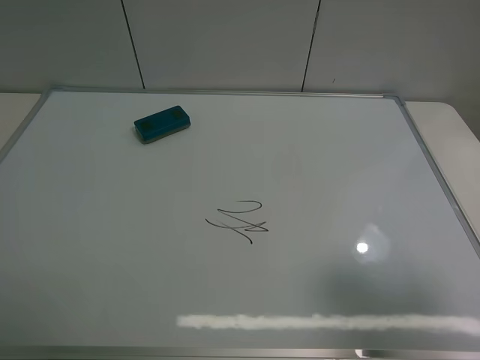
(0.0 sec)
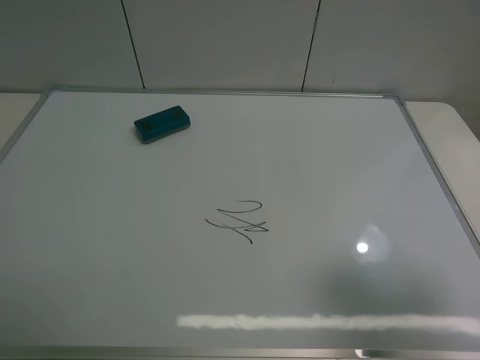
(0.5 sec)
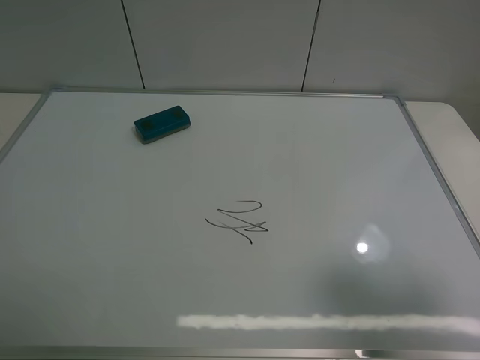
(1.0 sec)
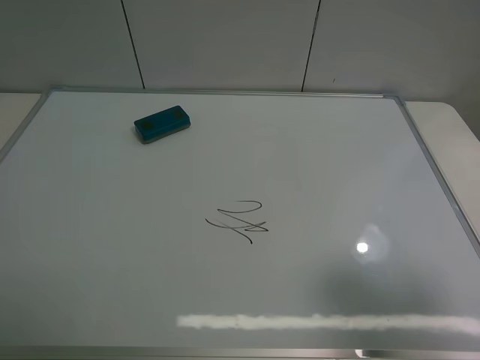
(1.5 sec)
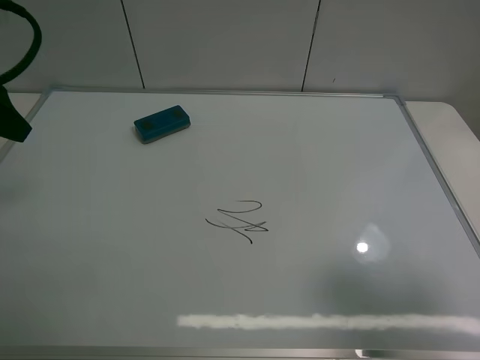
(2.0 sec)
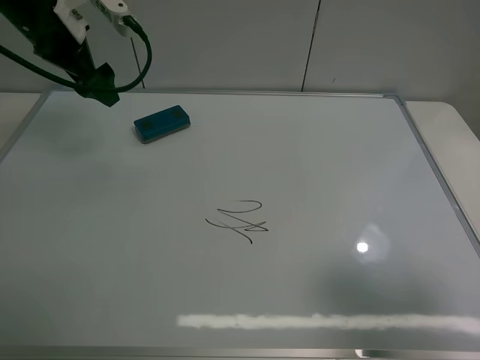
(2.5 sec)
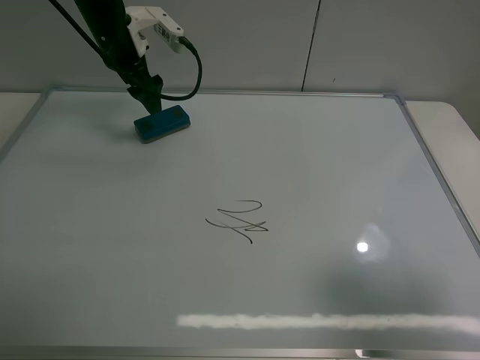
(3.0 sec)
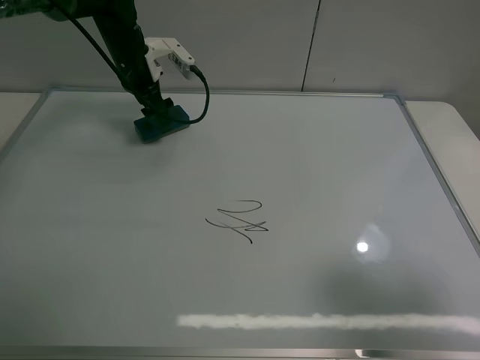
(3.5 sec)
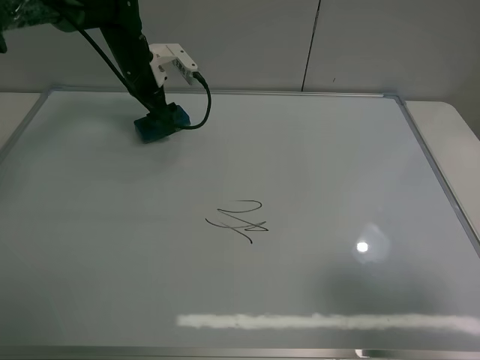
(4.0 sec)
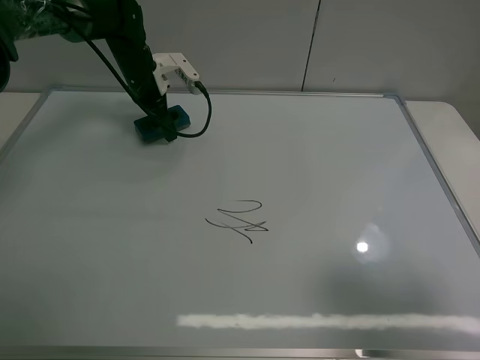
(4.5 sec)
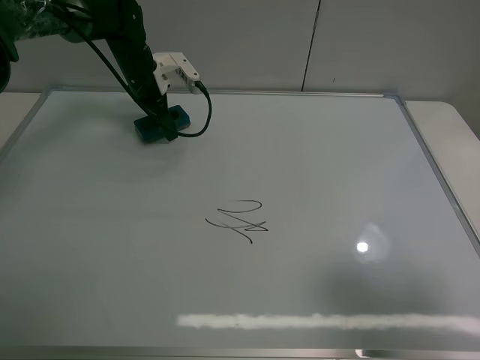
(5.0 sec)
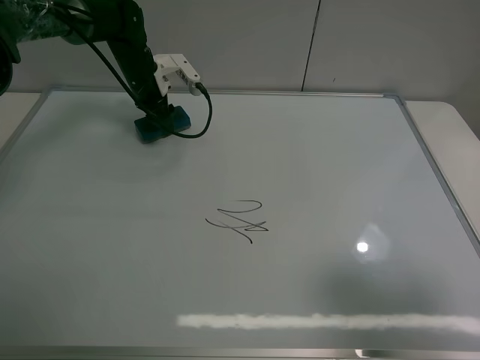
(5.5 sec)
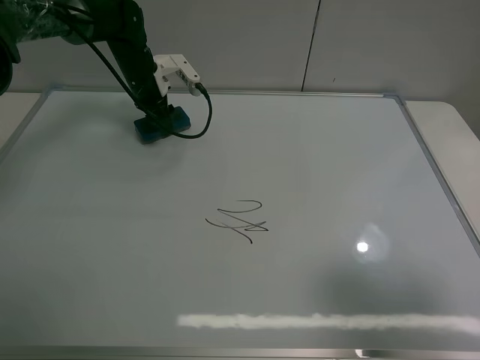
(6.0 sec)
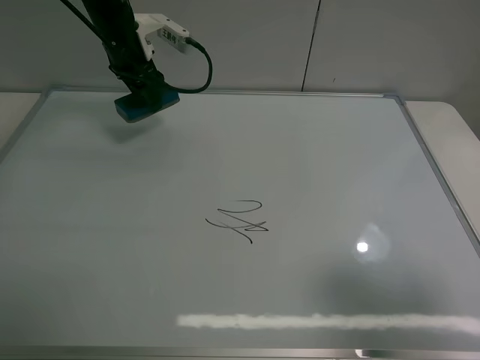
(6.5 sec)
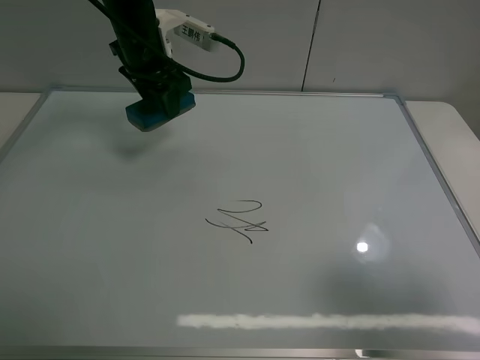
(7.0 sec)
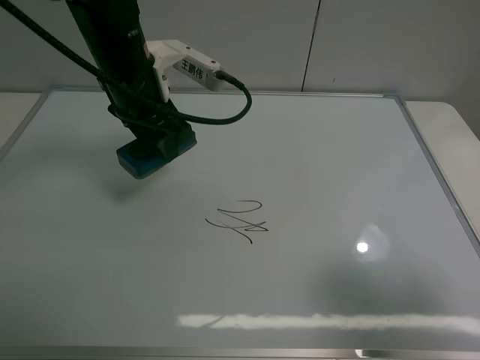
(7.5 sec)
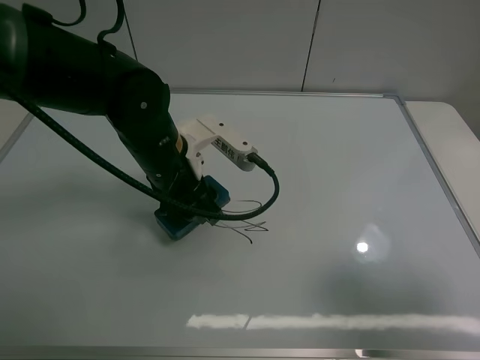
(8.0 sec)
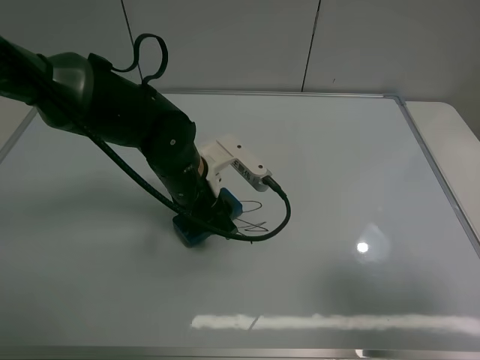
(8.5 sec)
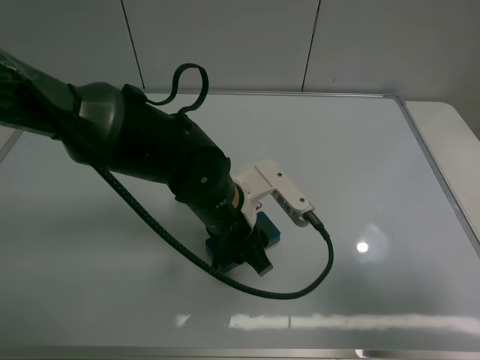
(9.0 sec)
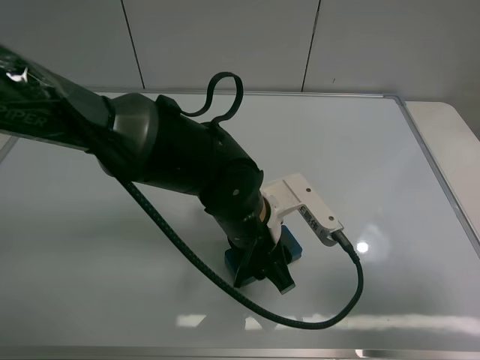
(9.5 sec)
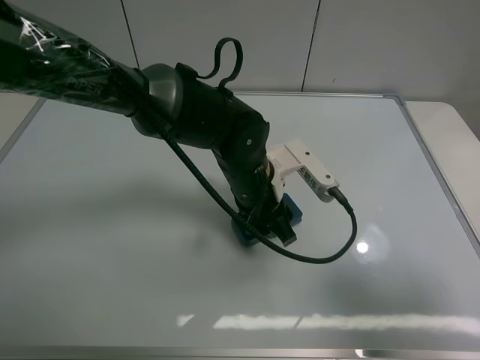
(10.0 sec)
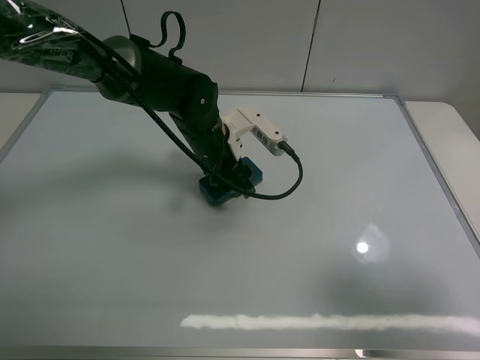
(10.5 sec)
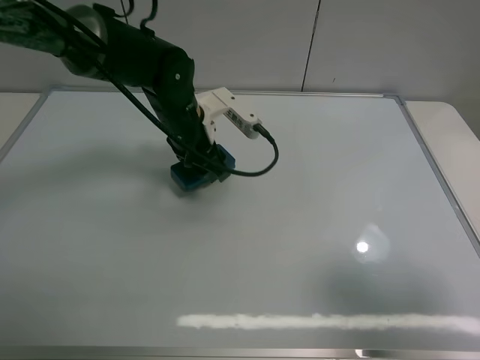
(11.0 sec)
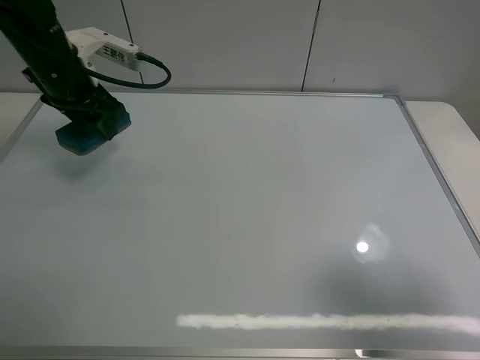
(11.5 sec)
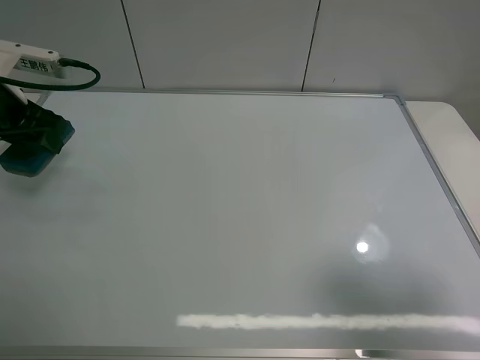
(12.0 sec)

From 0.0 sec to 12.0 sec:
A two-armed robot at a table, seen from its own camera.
Task of the whole recording: use the left claw to pick up the whiteboard eraser, wipe the notes on the whiteboard clean, and then put them back in place.
Step, from 0.0 sec to 5.5 sec: Grasp the eraser with the left gripper.
Step, from 6.0 sec to 10.5 sec: Grasp the eraser and wipe the blackboard with the left gripper.
From 0.0 sec to 2.0 sec: The left gripper moves forward, some 25 cm.
From 2.0 sec to 4.0 sec: The left gripper is displaced forward, downward and to the right by roughly 30 cm.
From 4.0 sec to 6.0 sec: The left gripper closes up.
From 6.0 sec to 8.0 sec: The left gripper goes some 25 cm backward and to the right.
From 8.0 sec to 10.0 sec: The left gripper goes approximately 10 cm to the right.
From 10.0 sec to 12.0 sec: The left gripper travels to the left by about 35 cm.

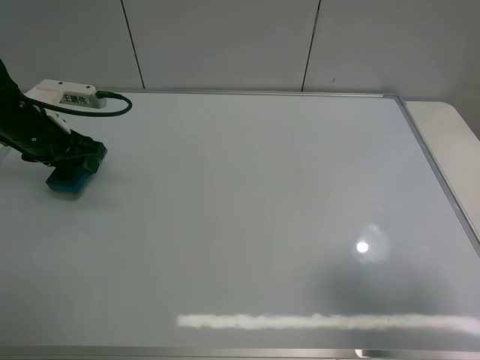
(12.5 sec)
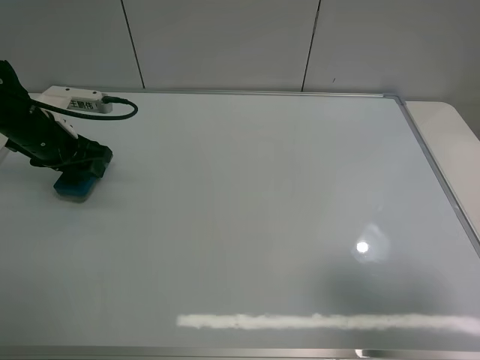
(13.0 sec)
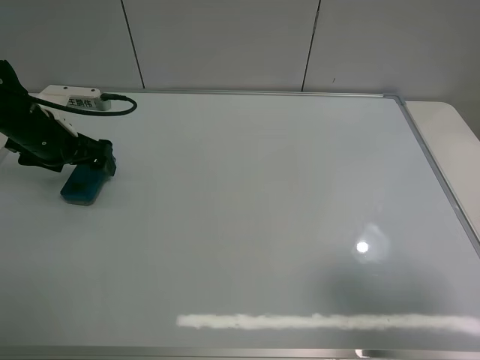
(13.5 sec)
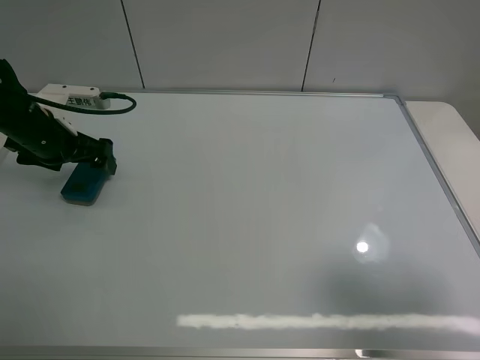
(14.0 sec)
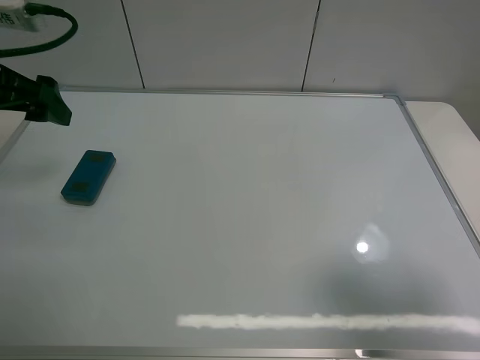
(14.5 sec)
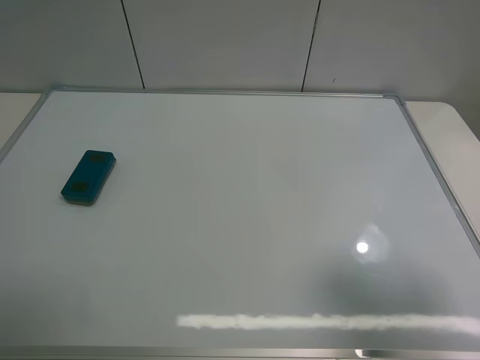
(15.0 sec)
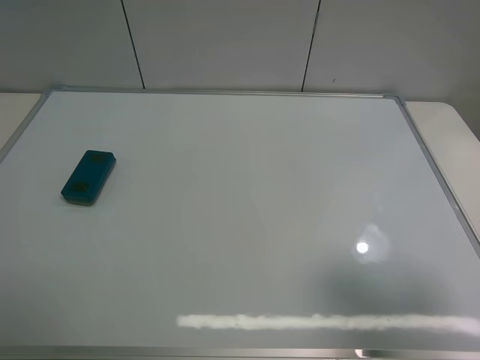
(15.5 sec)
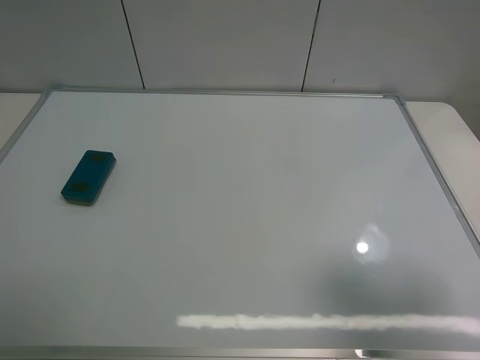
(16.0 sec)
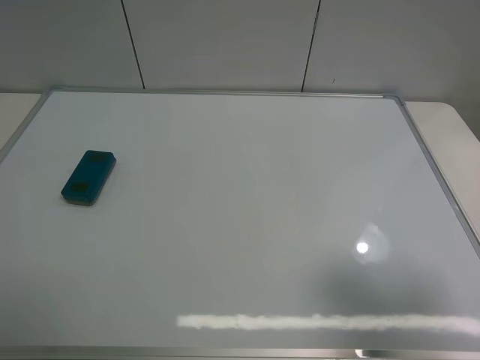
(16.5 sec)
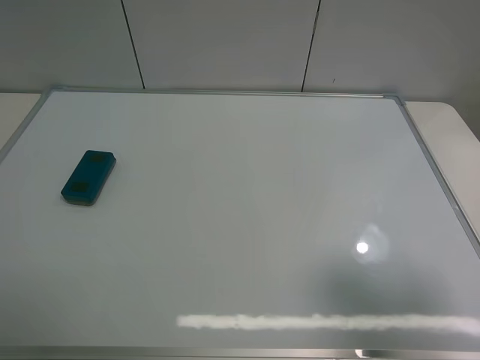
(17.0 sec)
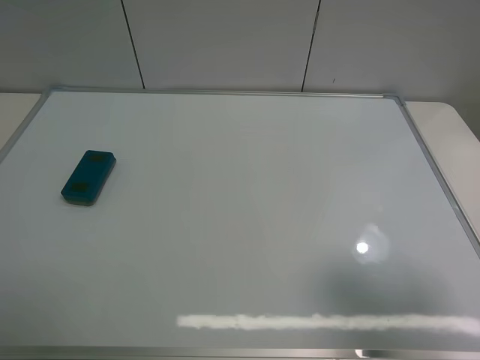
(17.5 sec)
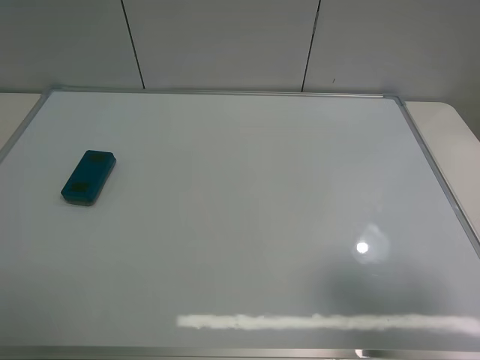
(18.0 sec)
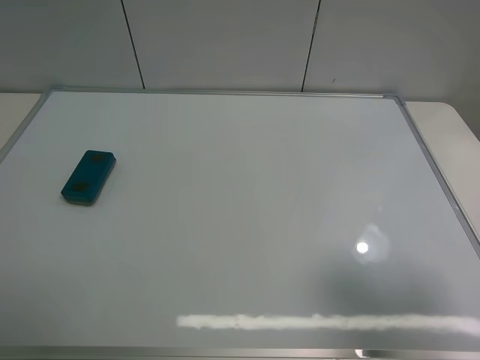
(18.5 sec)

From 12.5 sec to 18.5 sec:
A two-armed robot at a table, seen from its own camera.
Task of the whole recording: use the left claw to pick up the whiteboard eraser, wipe the notes on the whiteboard clean, and then put them back in place.
From 12.5 sec to 14.5 sec: The left gripper heads upward and backward, covering about 15 cm, and opens its fingers.
From 14.5 sec to 16.5 sec: The left gripper heads backward, covering about 30 cm.
